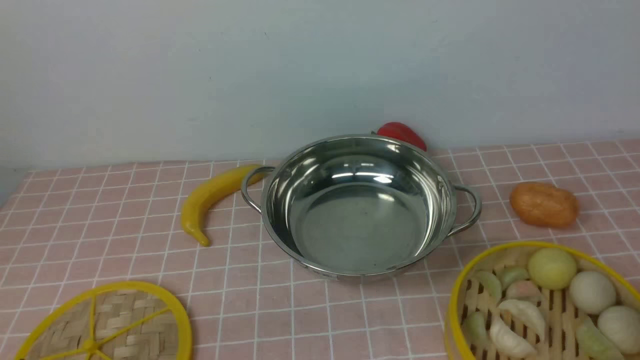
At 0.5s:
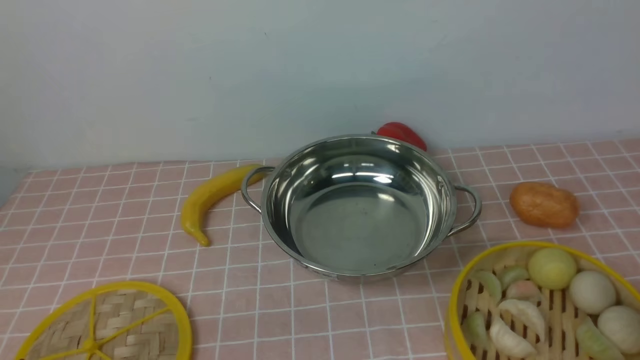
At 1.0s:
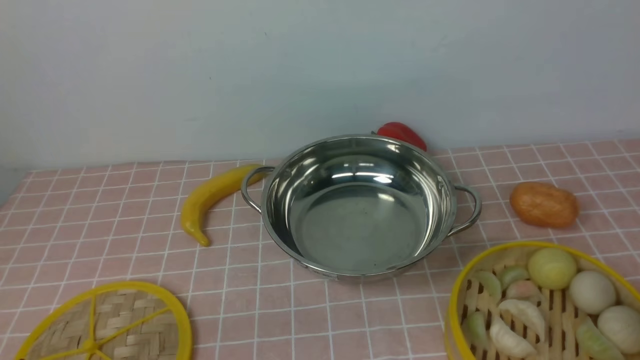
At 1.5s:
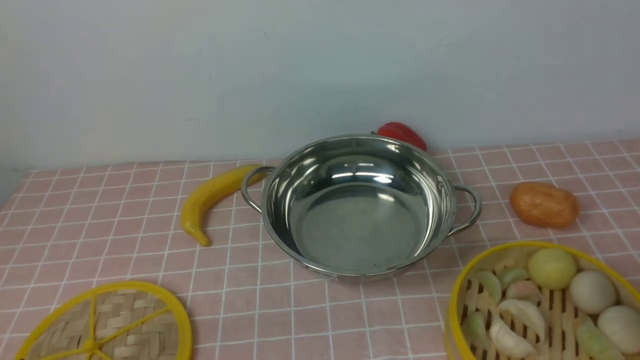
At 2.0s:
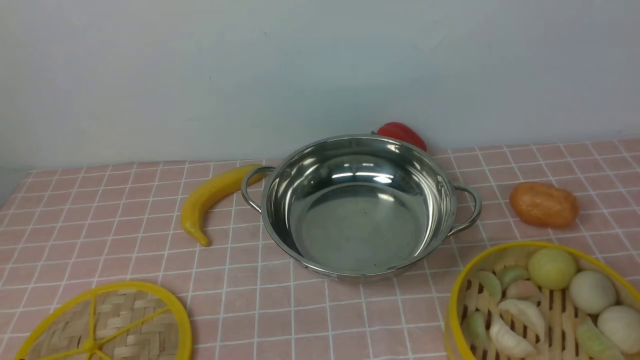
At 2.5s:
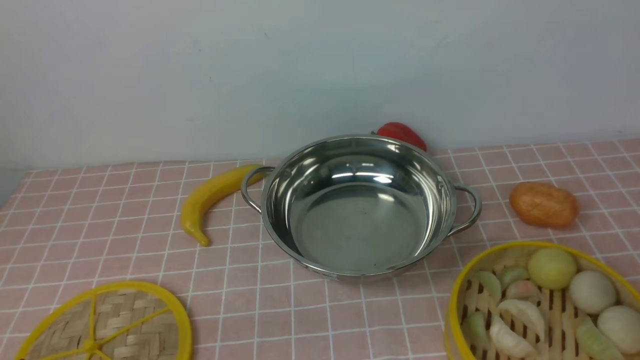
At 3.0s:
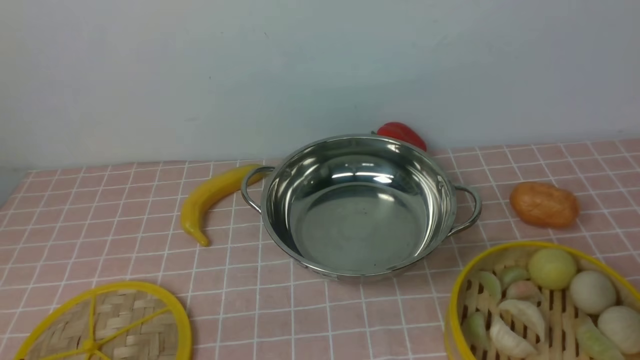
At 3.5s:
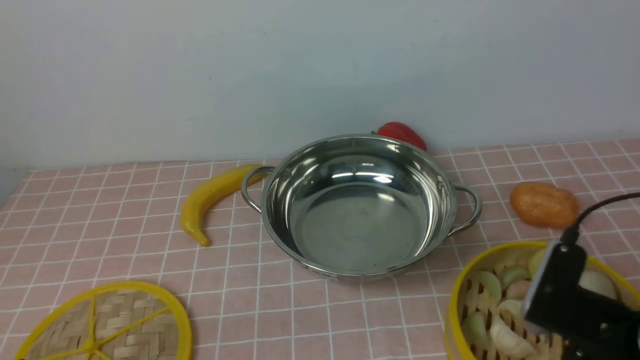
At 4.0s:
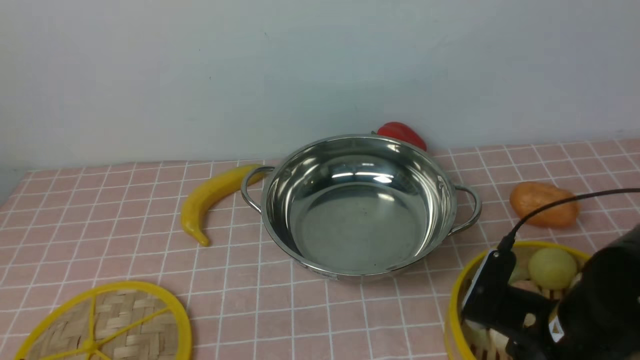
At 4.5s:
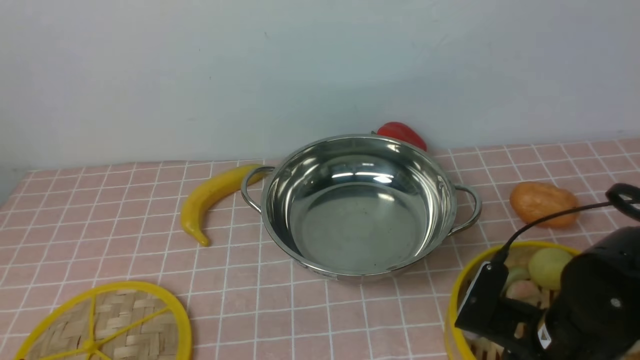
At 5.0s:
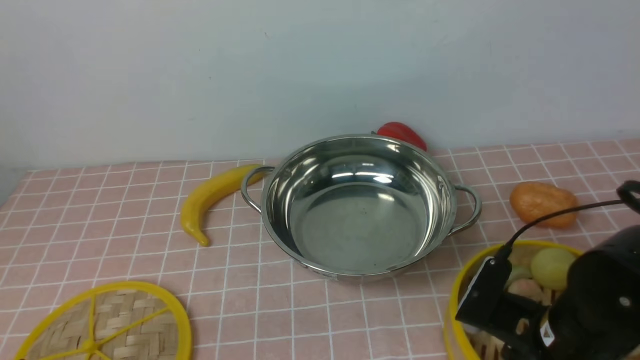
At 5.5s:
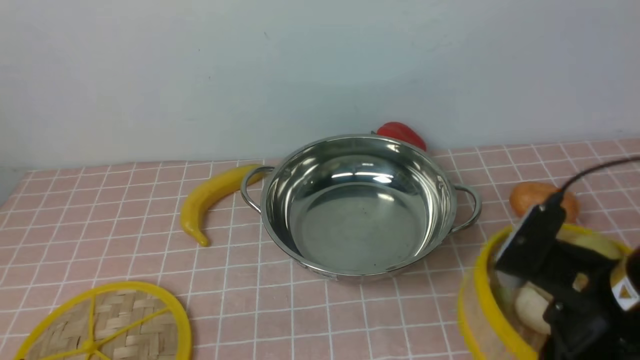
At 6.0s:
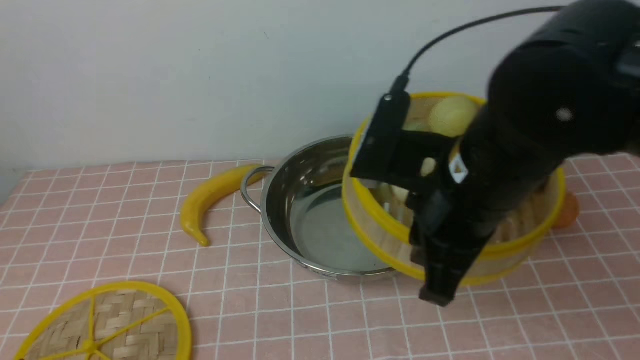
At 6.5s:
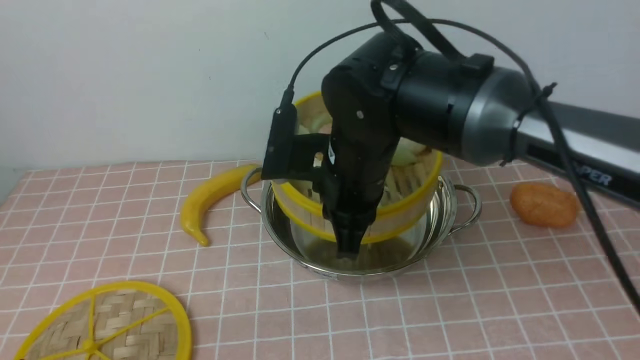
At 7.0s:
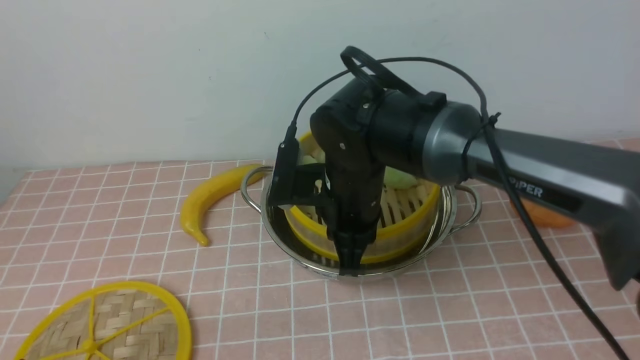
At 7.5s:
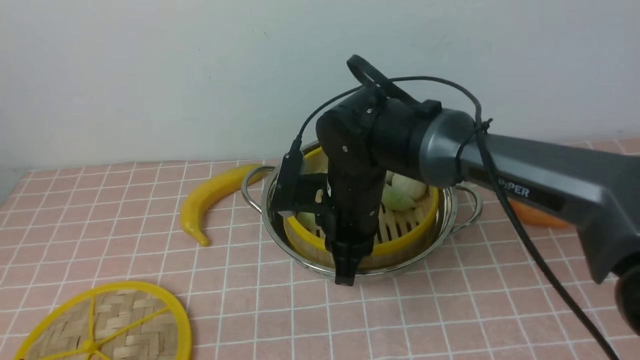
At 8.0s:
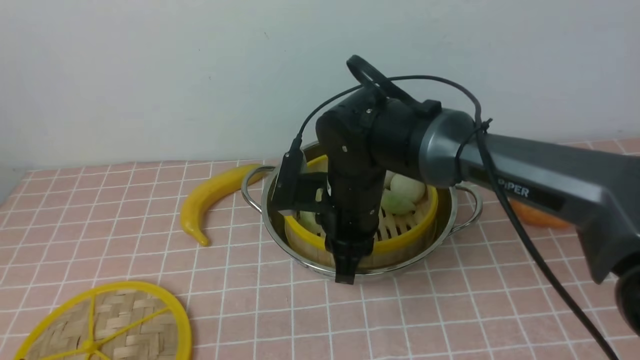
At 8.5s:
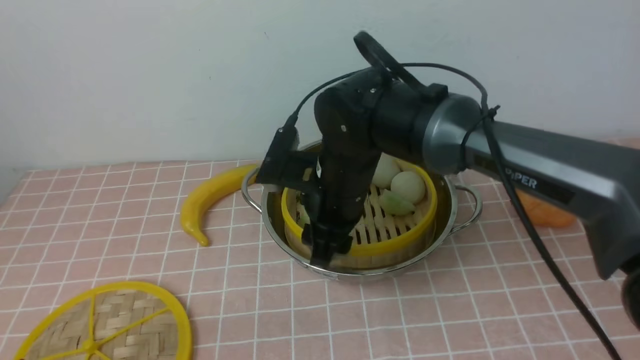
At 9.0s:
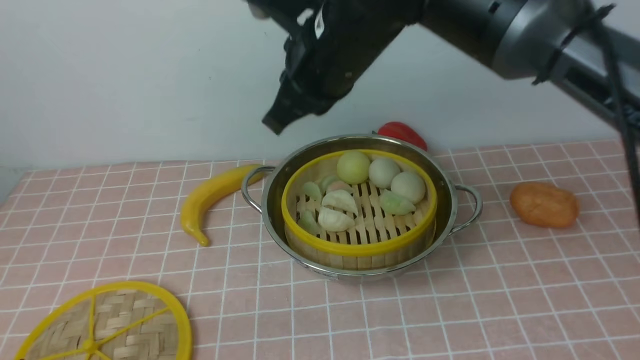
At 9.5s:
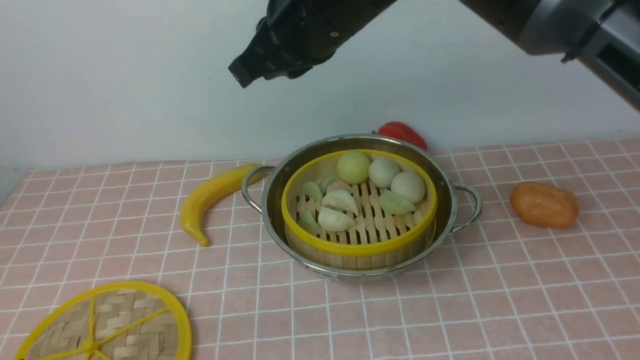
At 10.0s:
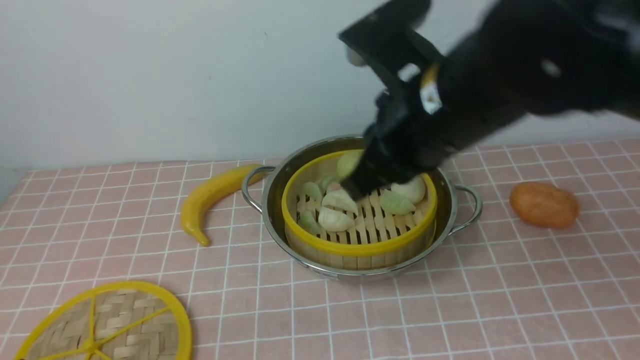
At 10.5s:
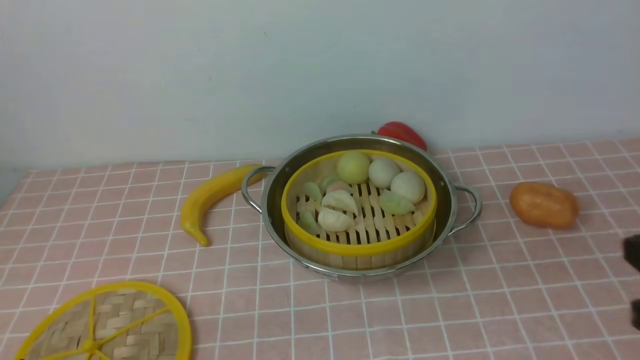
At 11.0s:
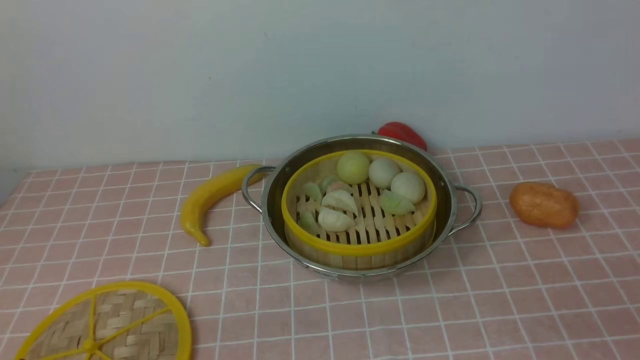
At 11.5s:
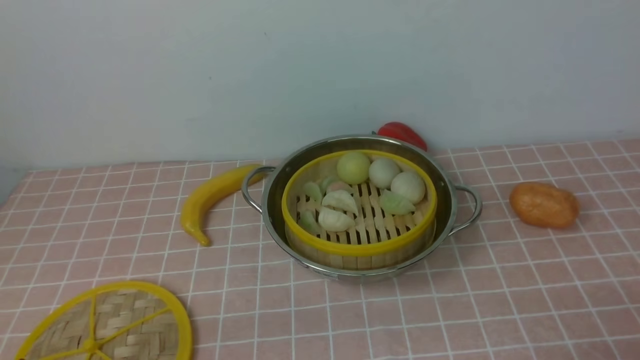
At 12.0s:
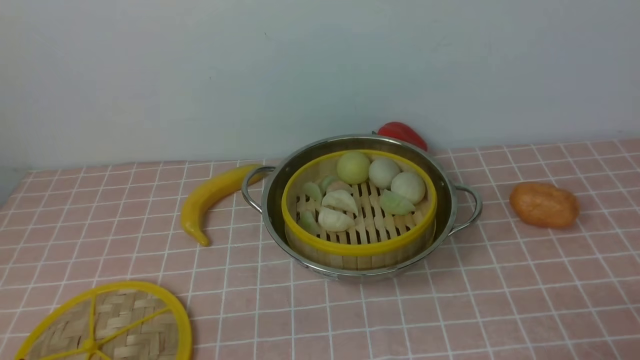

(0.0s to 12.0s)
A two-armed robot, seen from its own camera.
Task of the whole recording: place the steamer in the pot on the pink tablecloth, and put the lid on the steamer.
Step, 0.0s - 5.0s: use the right arm to lift the steamer closest to it.
Step, 5.5s - 8.5s: use the right arm to put the steamer into the iron steamer pot in the middle.
2.0s - 4.0s: The right gripper is displaced forward, to the left and downward by about 20 cm.
4.0s - 6.0s: The right gripper moves upward and to the left, some 15 cm, and closes its fingers.
6.0s - 8.0s: The right gripper heads forward, downward and to the left, covering approximately 20 cm.
8.0s - 10.0s: The right gripper heads upward, covering roughly 15 cm, and opens, then closes again.
10.0s - 12.0s: The right gripper is displaced to the right, backward and downward by some 40 cm, and opens.

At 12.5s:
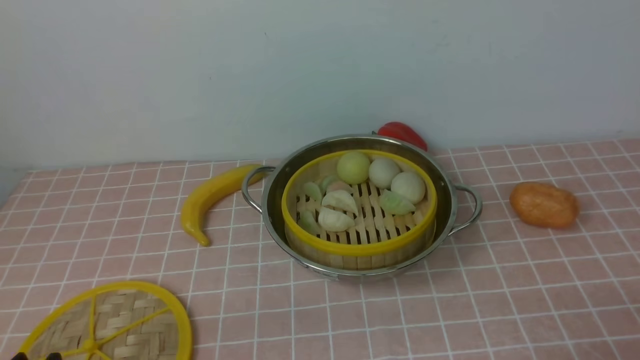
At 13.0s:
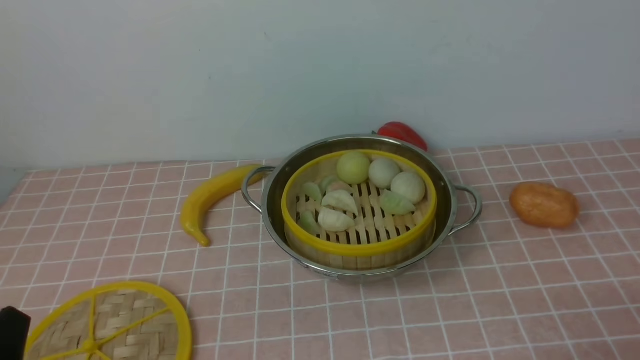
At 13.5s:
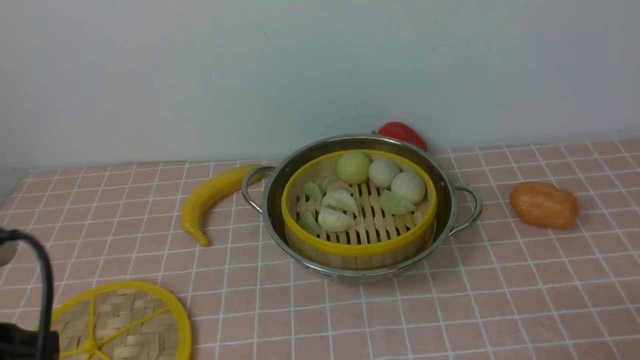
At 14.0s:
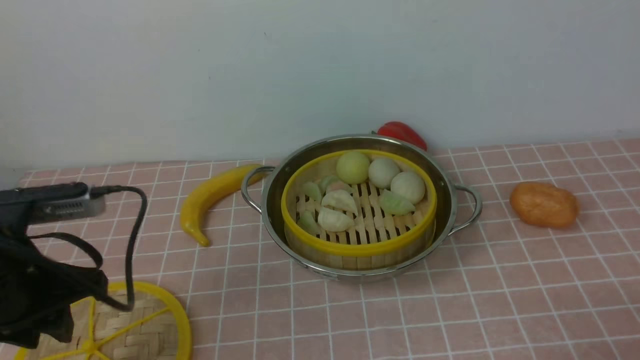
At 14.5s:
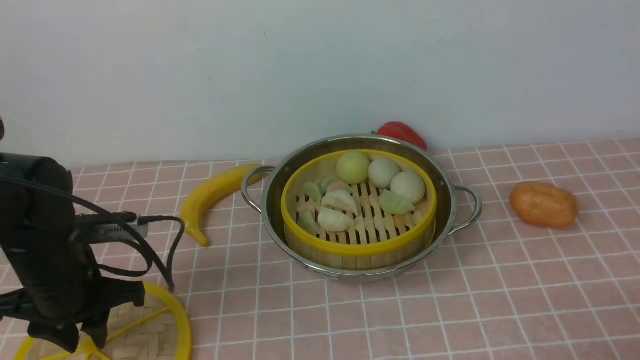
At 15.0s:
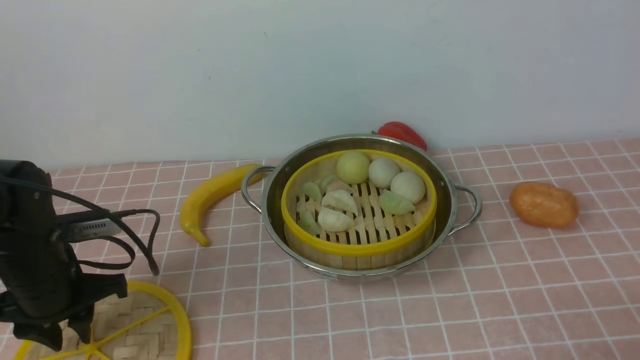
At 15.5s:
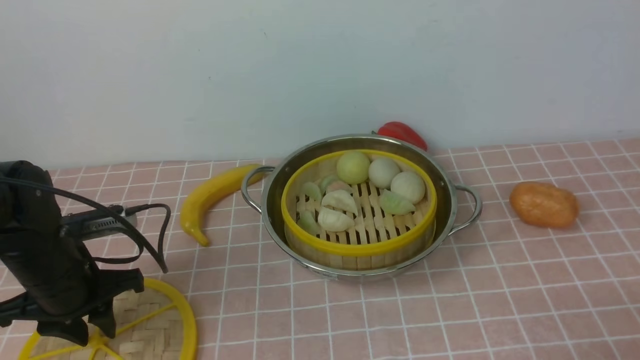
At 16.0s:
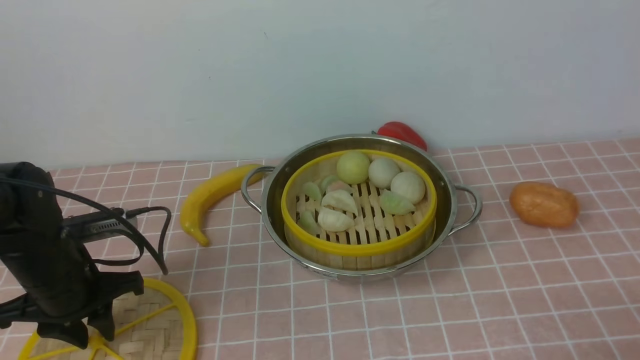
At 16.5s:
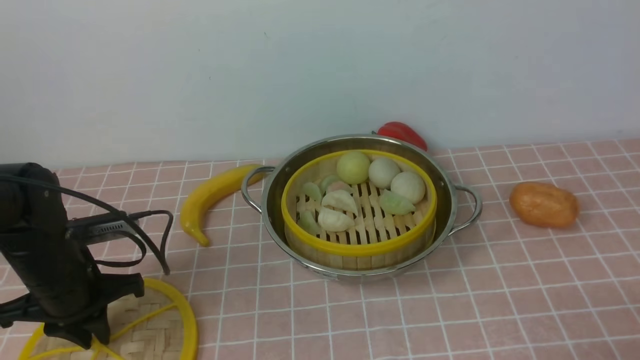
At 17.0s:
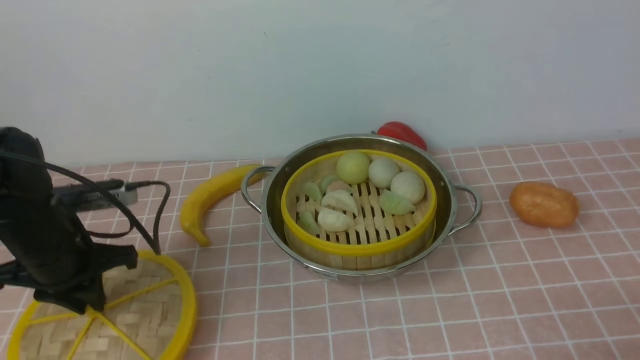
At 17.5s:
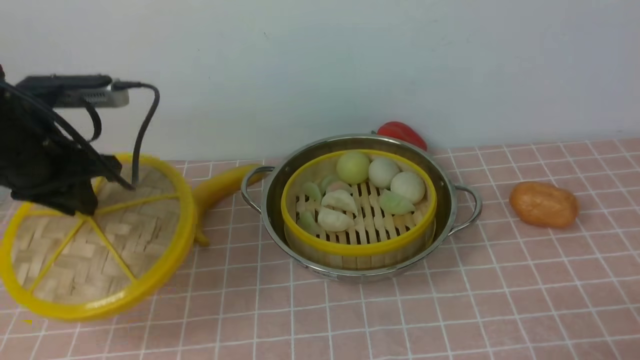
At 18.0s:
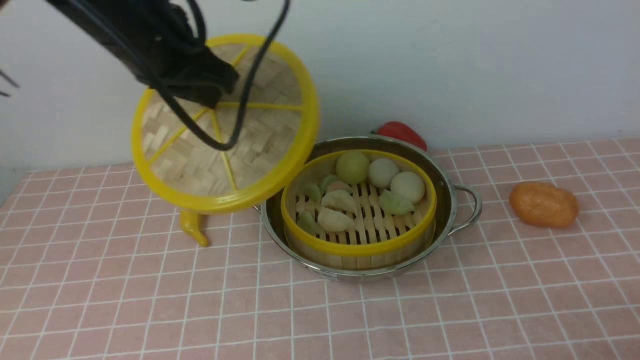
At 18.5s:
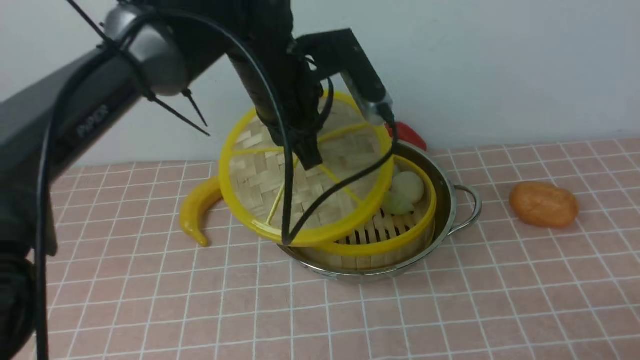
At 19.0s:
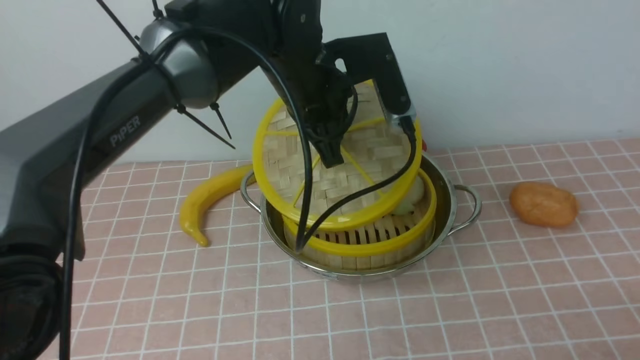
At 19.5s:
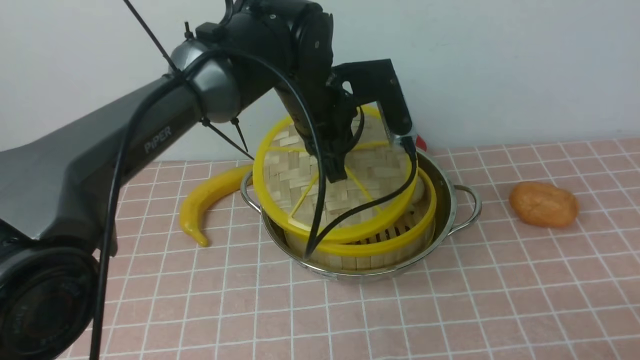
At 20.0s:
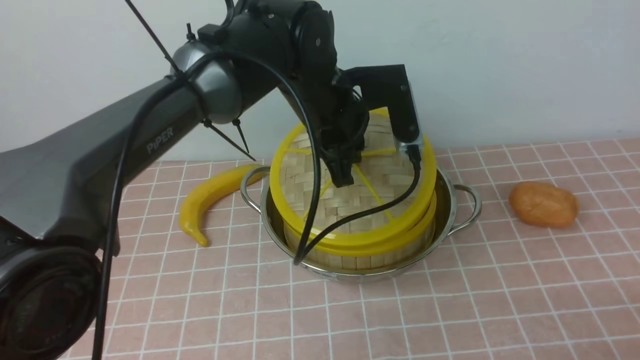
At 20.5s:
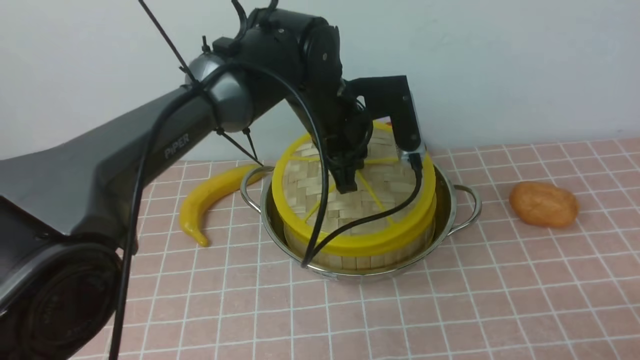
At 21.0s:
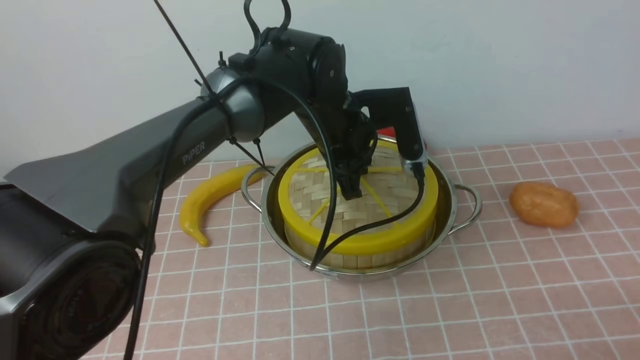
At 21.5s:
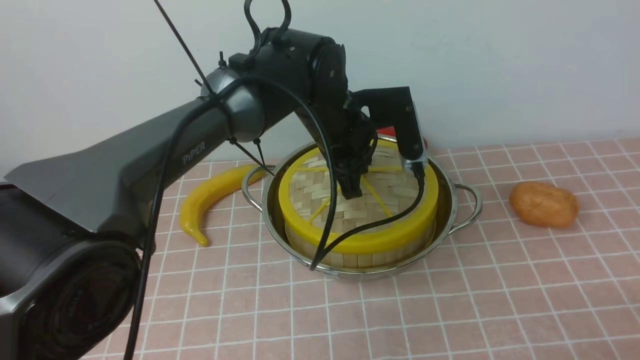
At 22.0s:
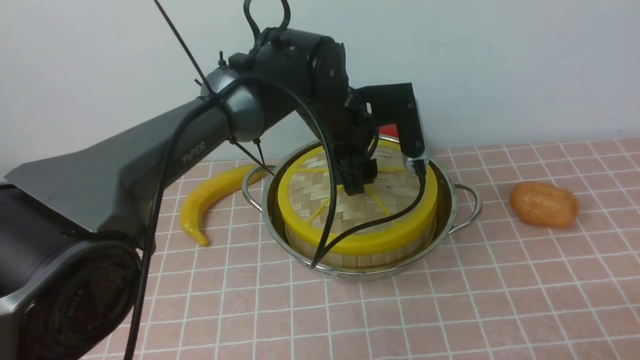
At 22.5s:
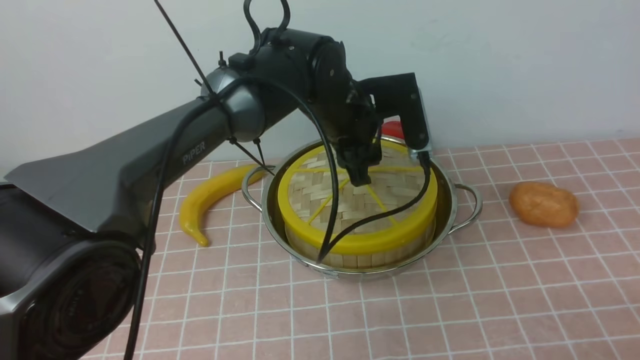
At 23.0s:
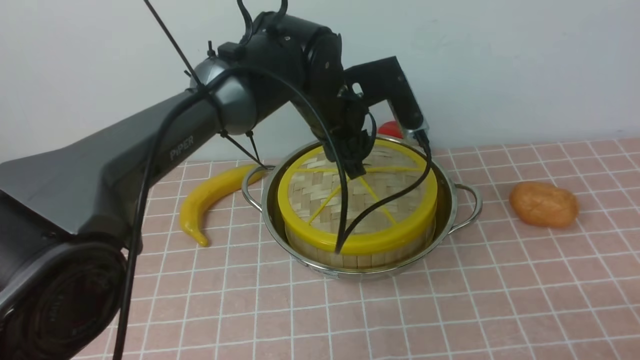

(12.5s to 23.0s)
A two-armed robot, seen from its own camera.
Task of the whole recording: place the steamer in the pot on the pink tablecloth, and put the lid on the steamer.
Step, 12.5s - 17.0s: use the left arm to lift the lid of the steamer.
12.5s - 14.5s: The left gripper moves forward, about 20 cm.
14.5s - 16.5s: There are only small adjustments of the grippers.
16.5s - 19.0s: The left gripper travels to the right, upward and forward by approximately 30 cm.
19.0s - 21.0s: The left gripper travels downward by approximately 5 cm.
21.0s - 23.0s: The left gripper opens up.
